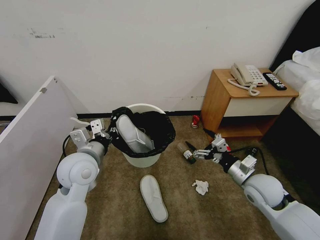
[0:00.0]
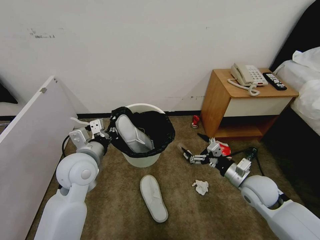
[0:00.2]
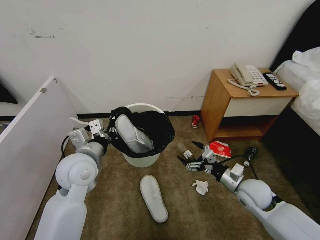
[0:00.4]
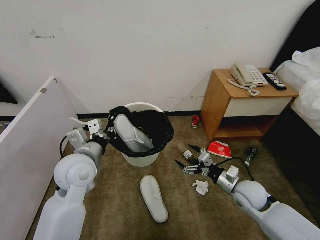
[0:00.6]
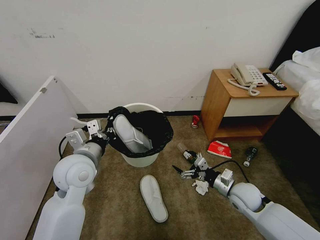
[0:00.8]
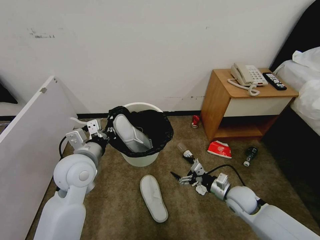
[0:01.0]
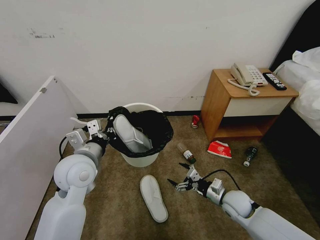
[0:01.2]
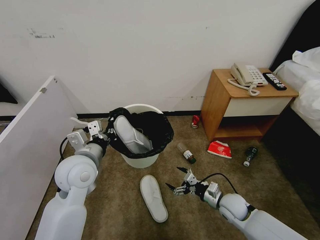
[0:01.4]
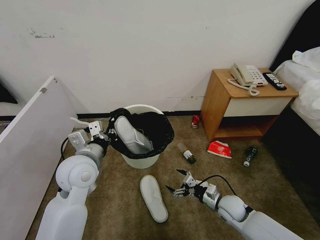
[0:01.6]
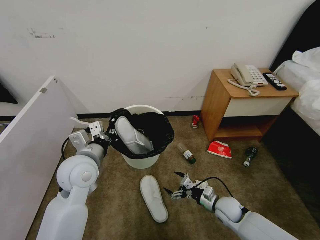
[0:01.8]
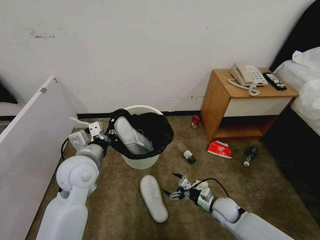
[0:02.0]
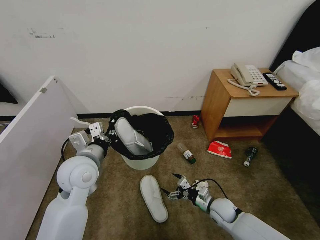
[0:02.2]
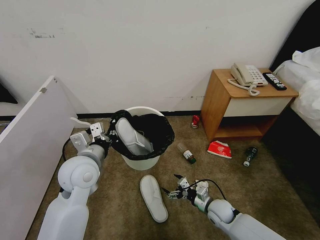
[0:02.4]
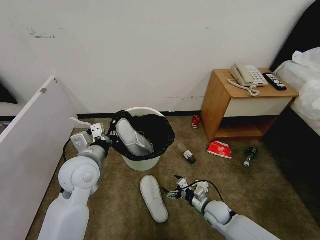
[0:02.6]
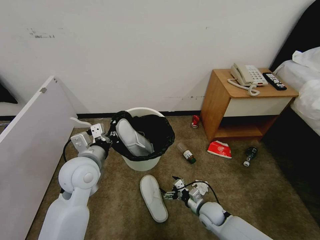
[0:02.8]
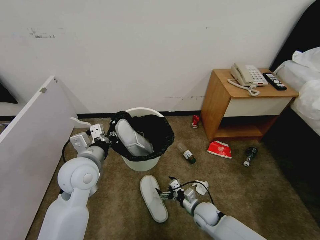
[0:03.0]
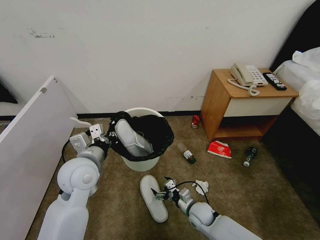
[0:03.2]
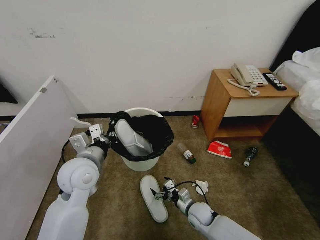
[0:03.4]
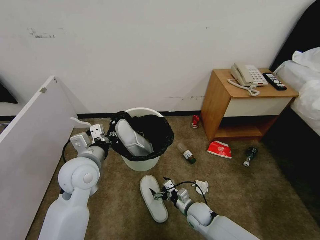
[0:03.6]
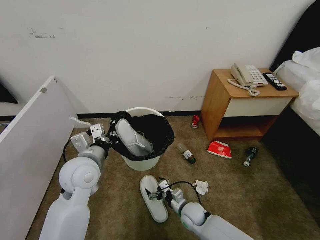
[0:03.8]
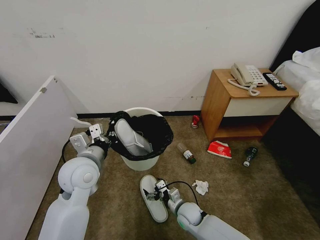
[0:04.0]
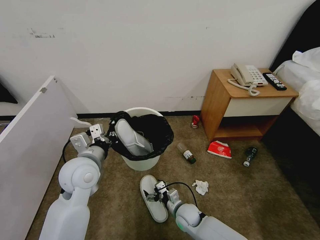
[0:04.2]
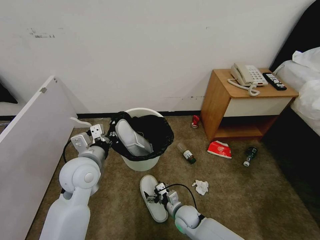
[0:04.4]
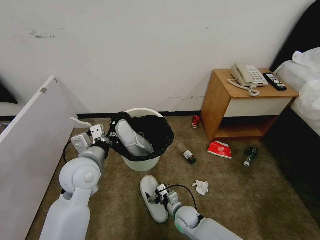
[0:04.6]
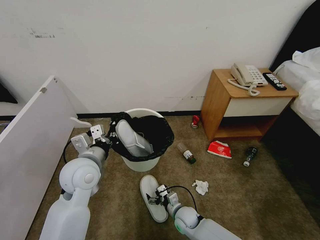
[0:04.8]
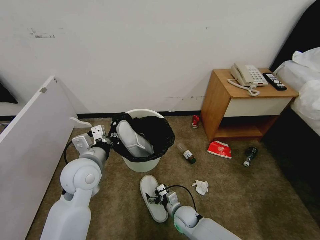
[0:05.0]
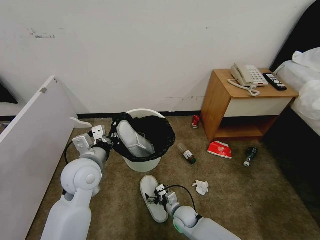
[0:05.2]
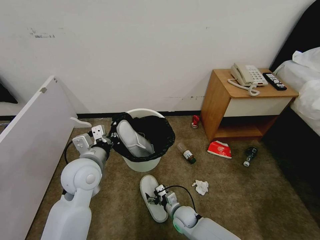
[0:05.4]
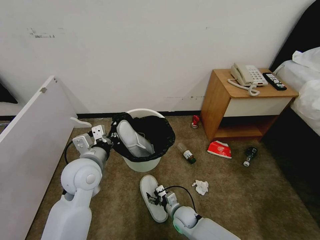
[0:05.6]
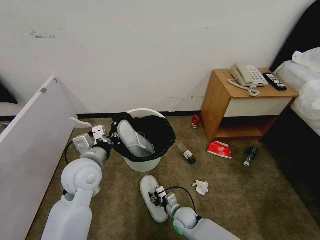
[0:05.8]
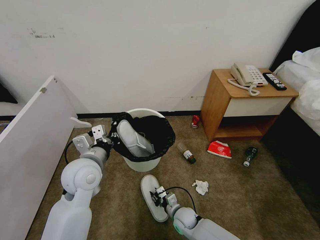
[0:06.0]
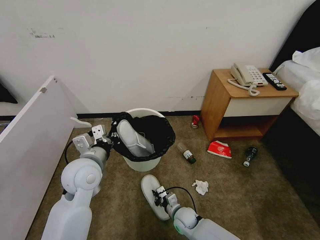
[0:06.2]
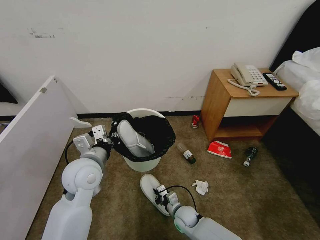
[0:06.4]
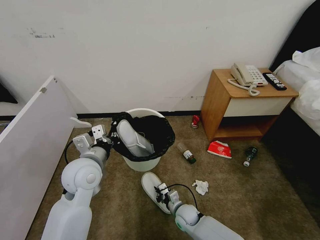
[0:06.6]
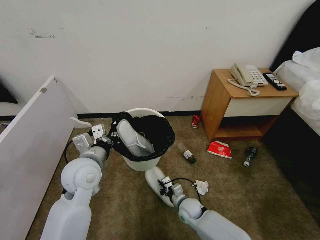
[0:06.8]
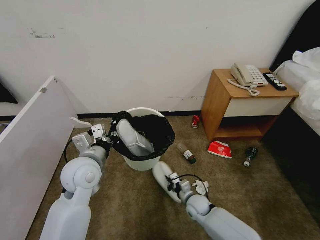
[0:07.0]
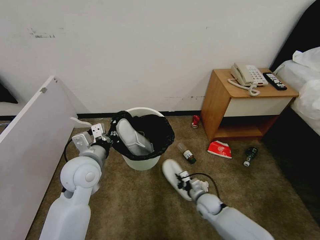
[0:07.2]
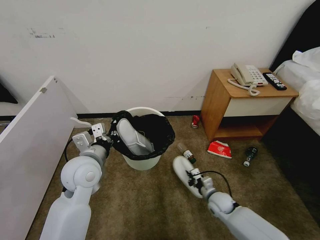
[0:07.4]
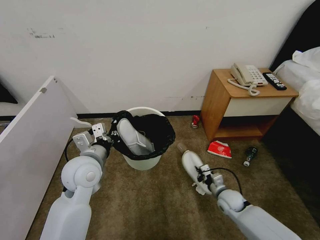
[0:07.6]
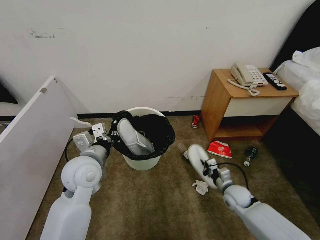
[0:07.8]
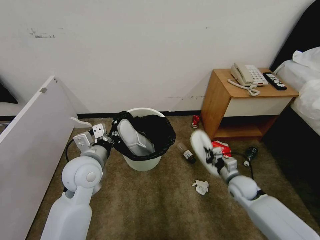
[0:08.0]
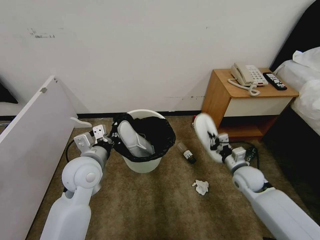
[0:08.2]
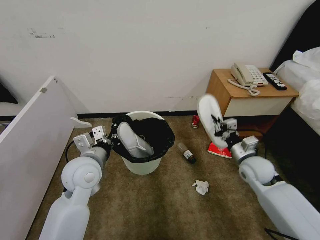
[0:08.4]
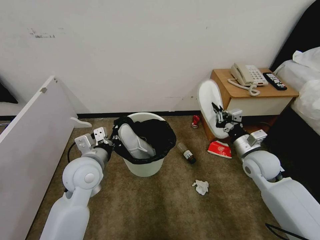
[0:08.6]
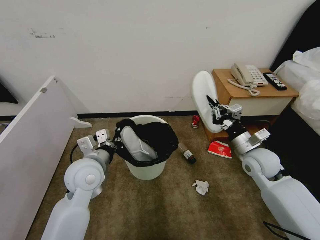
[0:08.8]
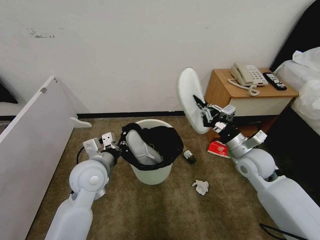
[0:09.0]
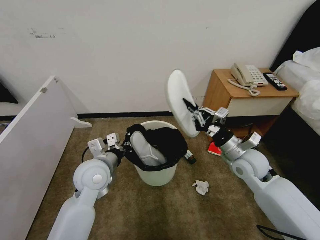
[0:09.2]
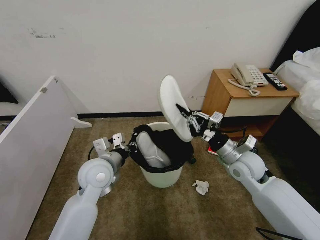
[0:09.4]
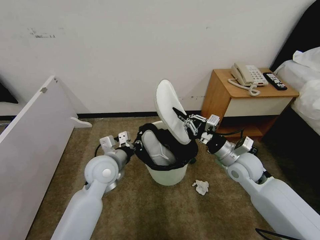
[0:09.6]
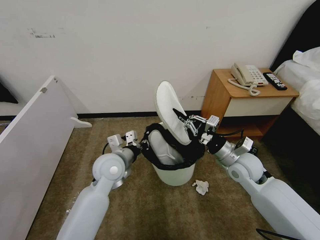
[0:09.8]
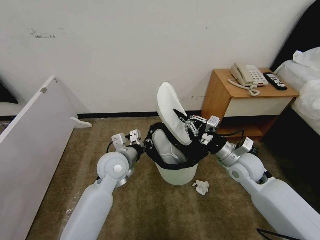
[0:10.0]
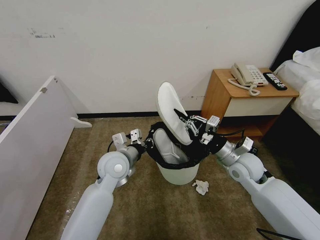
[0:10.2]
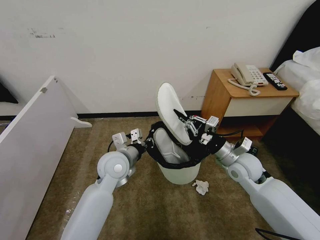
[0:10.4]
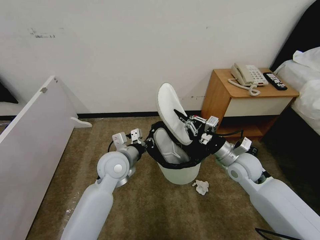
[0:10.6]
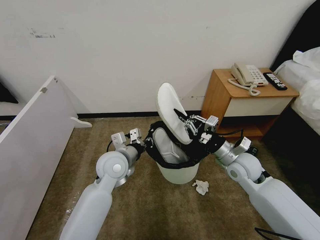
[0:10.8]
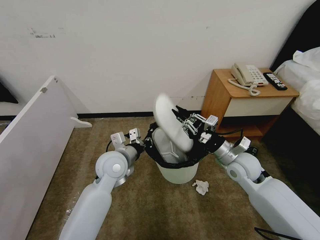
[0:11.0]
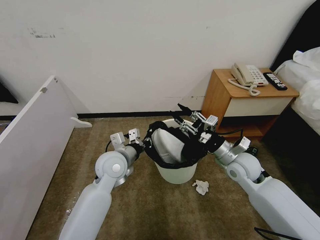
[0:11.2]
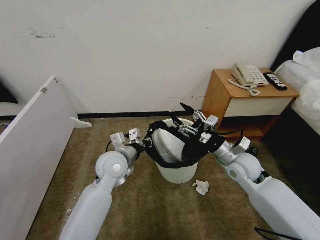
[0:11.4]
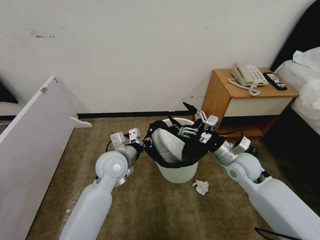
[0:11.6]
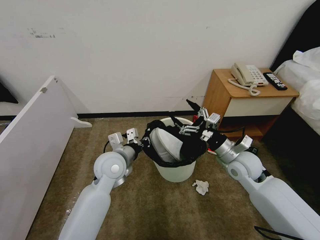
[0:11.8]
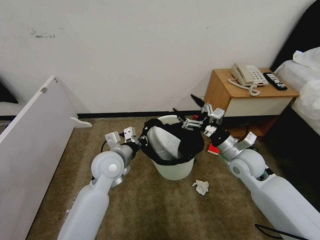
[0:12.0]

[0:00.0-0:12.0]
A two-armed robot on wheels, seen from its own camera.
Task of the whole recording: Pick up the trash bin, then pick up the garbage from the floor and place it into the trash bin.
0:00.0 to 0:01.6: The right gripper shifts some 15 cm downward.
0:01.6 to 0:03.0: The right gripper travels to the left and downward by roughly 10 cm.
0:03.0 to 0:04.4: The right gripper shifts roughly 5 cm to the left.
0:04.4 to 0:06.0: The right gripper closes up.
0:06.0 to 0:07.6: The right gripper travels to the right by about 20 cm.
0:07.6 to 0:09.0: The right gripper moves upward, roughly 25 cm.
0:09.0 to 0:10.4: The left gripper goes approximately 5 cm to the right.
0:10.4 to 0:12.0: The right gripper opens up.

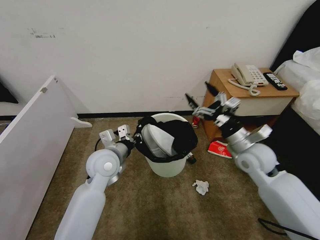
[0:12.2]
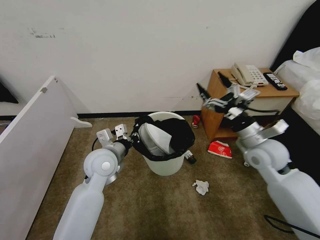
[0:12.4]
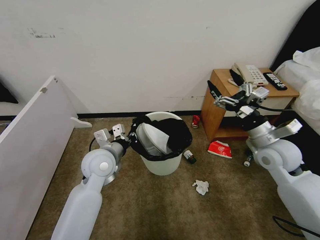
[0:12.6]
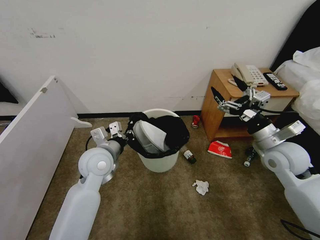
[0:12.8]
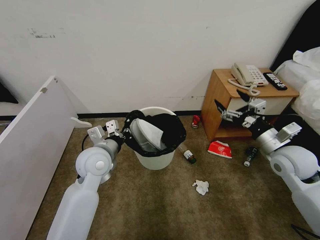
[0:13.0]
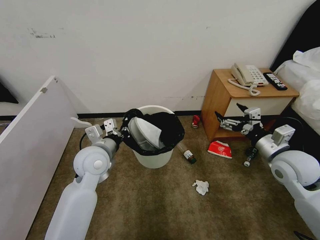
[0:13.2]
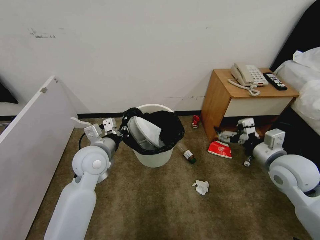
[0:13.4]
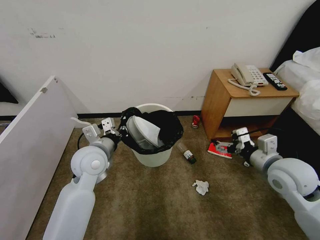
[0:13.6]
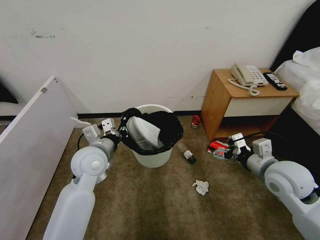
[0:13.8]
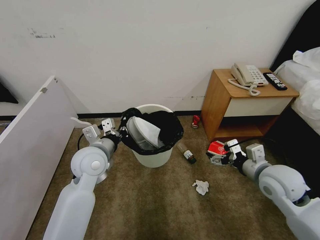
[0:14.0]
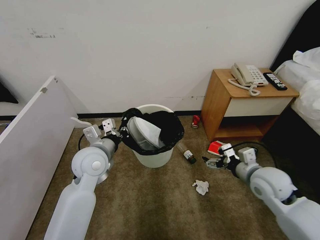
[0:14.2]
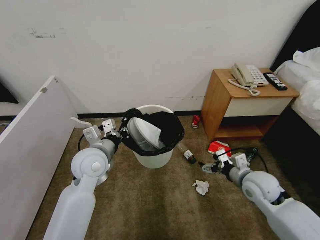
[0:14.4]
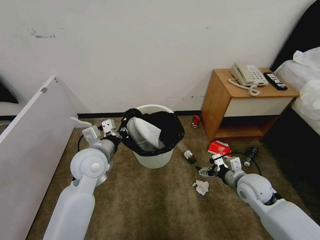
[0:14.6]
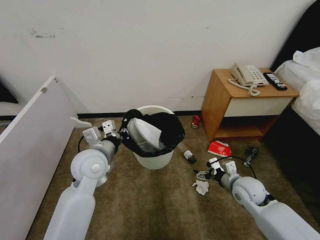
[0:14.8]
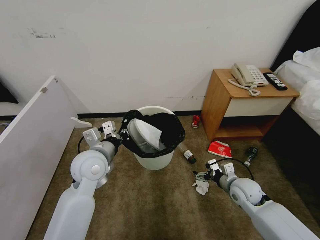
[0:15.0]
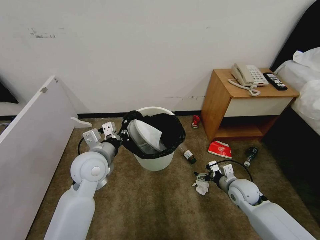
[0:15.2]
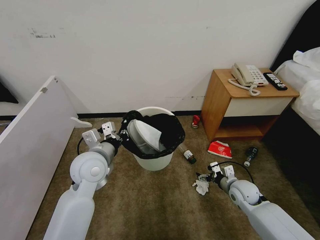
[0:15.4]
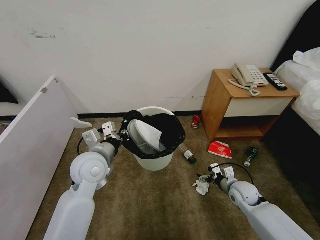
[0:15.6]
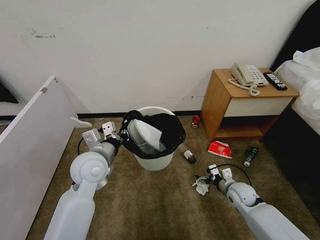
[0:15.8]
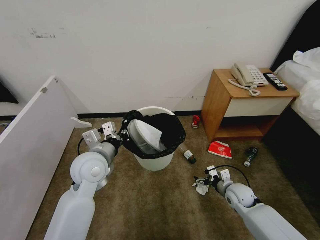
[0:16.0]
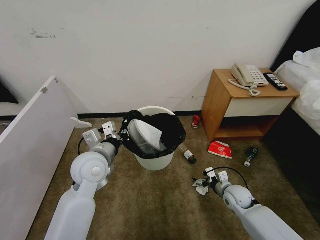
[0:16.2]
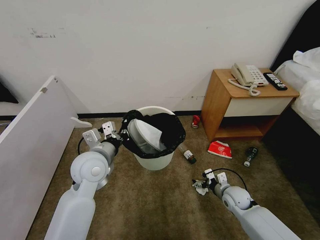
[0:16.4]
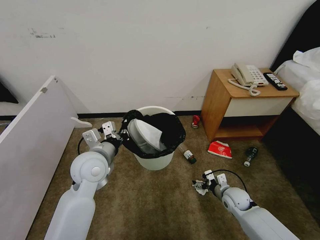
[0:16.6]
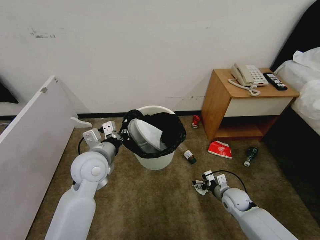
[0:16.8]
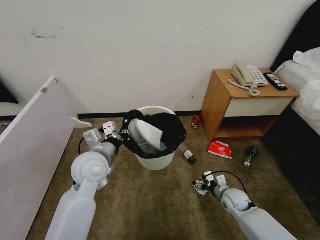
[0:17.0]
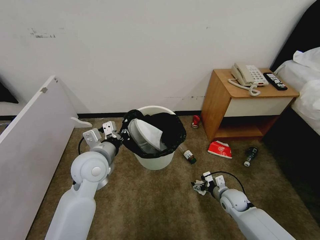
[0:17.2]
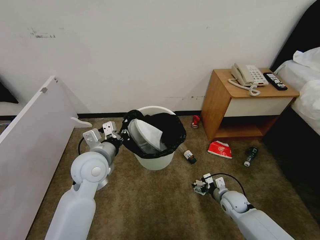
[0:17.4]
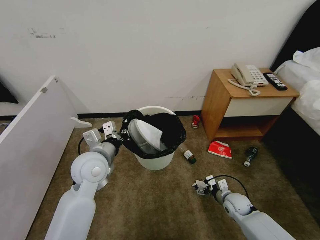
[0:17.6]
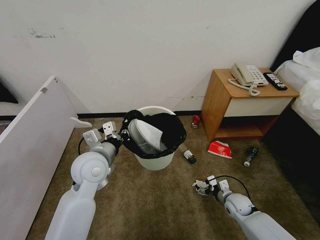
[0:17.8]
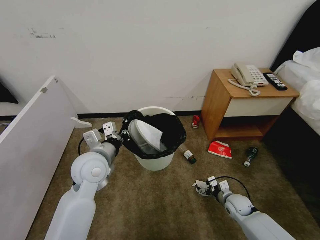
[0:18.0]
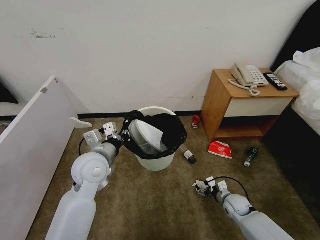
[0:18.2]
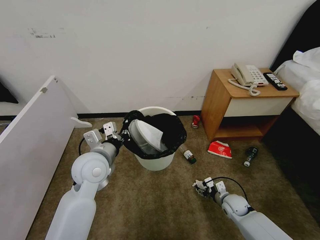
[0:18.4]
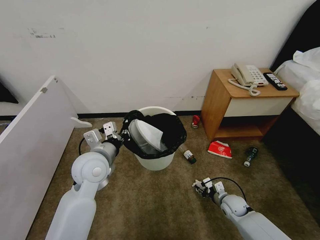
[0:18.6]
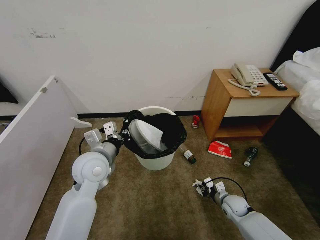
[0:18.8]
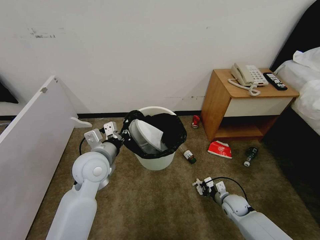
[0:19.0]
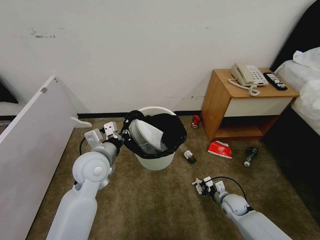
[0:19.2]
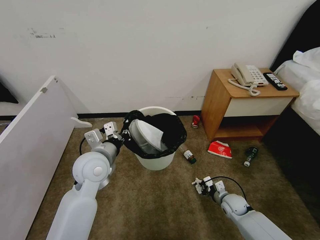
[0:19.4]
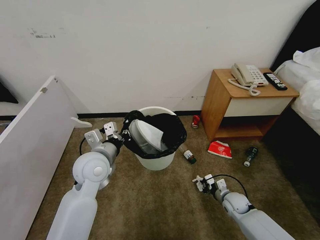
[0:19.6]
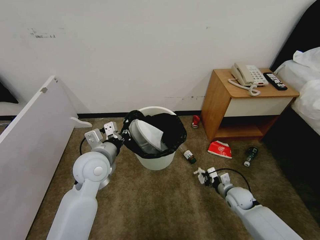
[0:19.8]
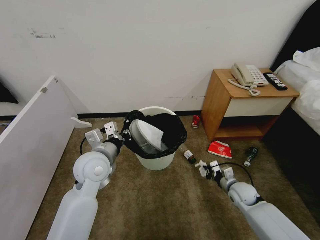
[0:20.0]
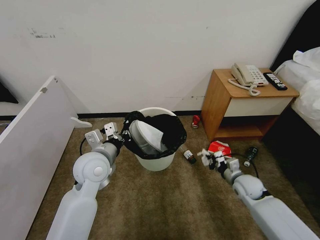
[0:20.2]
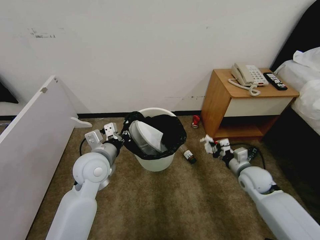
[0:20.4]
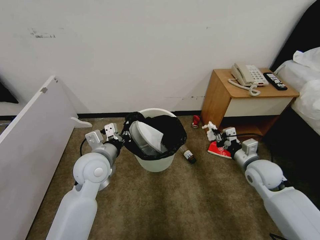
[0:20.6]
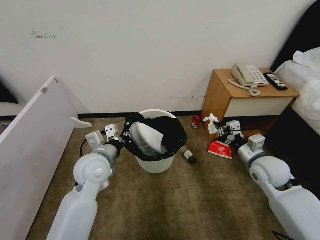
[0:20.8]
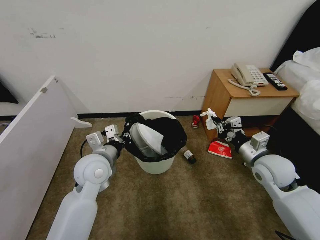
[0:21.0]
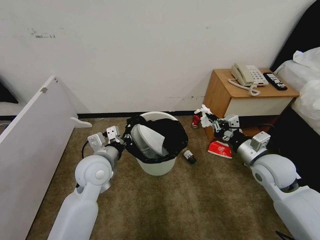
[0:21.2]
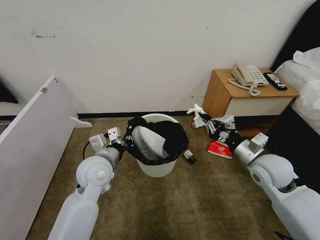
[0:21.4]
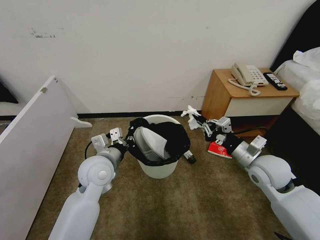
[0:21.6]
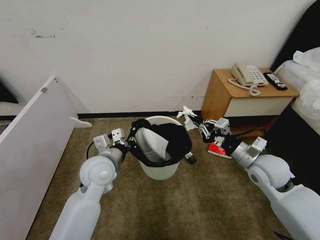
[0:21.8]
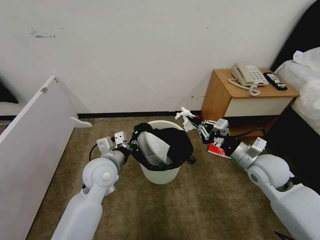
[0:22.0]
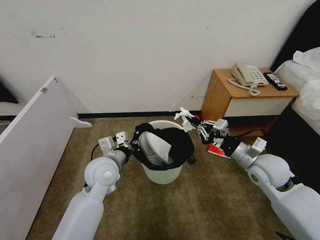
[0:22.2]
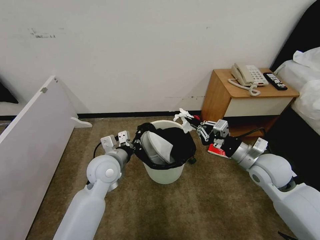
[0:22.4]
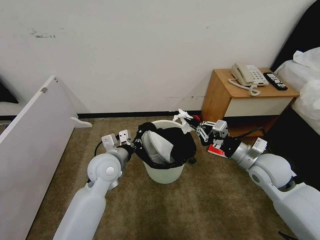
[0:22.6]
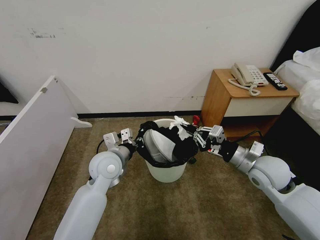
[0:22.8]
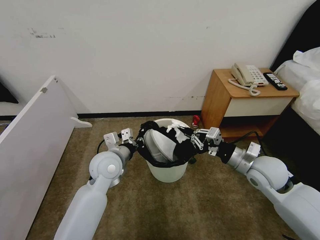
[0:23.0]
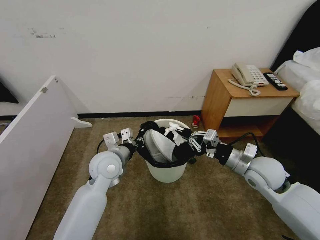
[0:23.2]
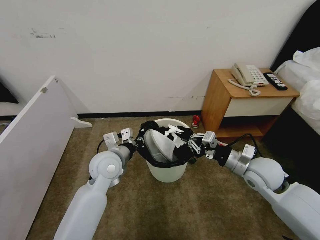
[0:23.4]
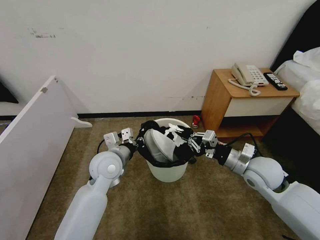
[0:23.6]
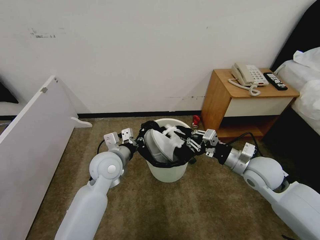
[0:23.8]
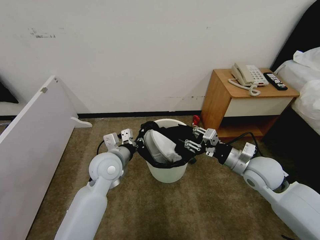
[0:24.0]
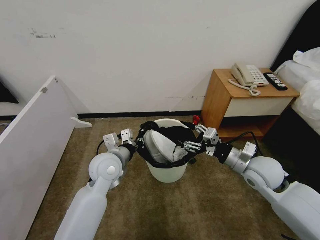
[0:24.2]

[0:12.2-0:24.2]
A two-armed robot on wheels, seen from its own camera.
Task of the whole recording: Pick up the trash bin, then pick up the garbage from the floor and place it into the trash bin.
0:12.2 to 0:13.8: The right gripper shifts approximately 5 cm backward.
0:13.8 to 0:15.2: The right gripper travels downward by roughly 20 cm.
0:15.2 to 0:16.6: The right gripper travels downward by about 5 cm.
0:16.6 to 0:18.2: The grippers make only small movements.
0:18.2 to 0:19.8: The right gripper closes its fingers.
0:19.8 to 0:21.2: The right gripper heads upward, covering about 25 cm.
0:22.6 to 0:24.2: The right gripper opens.
